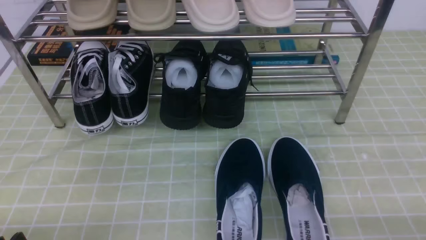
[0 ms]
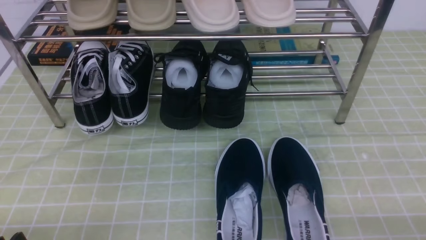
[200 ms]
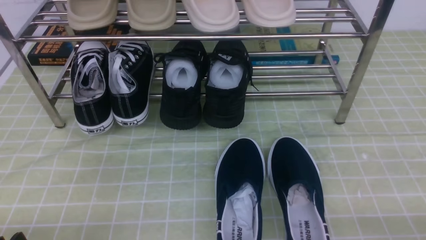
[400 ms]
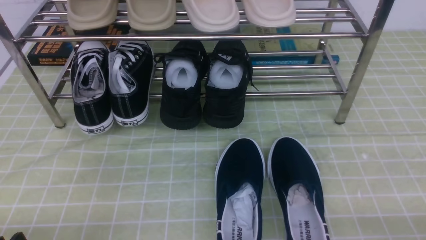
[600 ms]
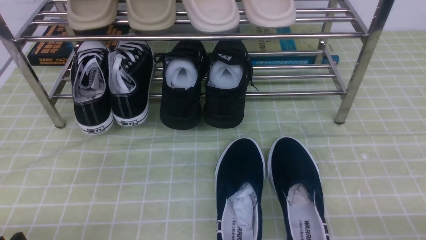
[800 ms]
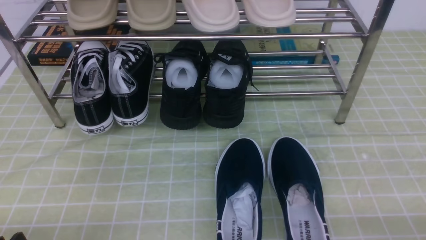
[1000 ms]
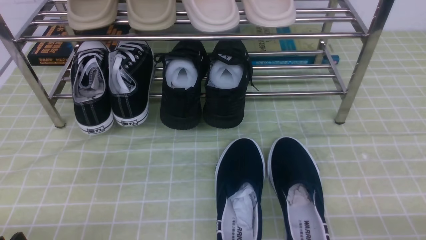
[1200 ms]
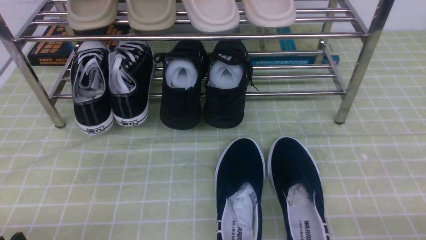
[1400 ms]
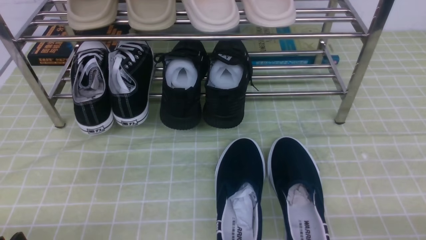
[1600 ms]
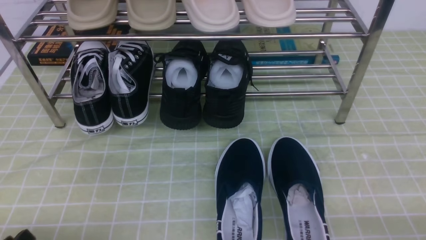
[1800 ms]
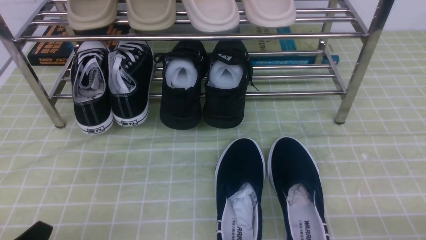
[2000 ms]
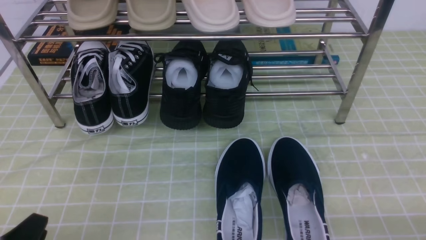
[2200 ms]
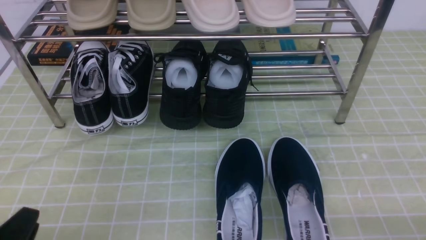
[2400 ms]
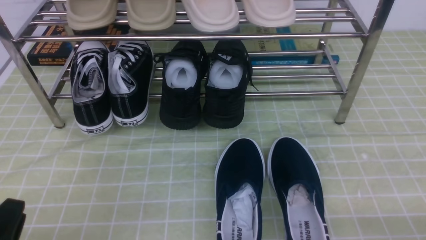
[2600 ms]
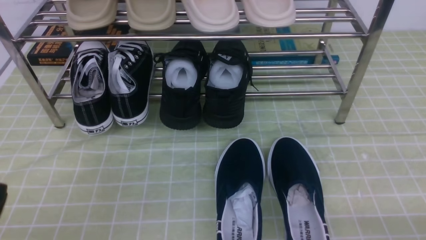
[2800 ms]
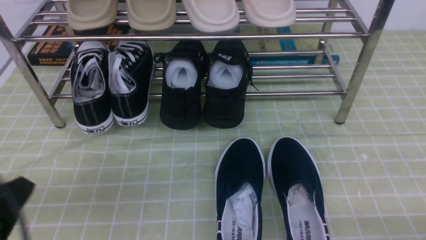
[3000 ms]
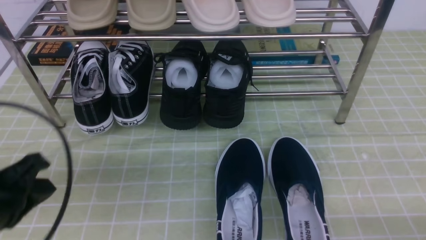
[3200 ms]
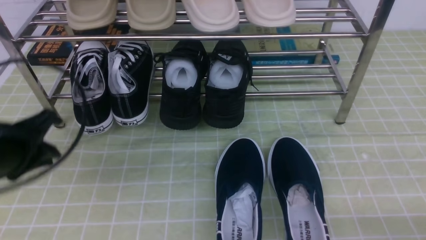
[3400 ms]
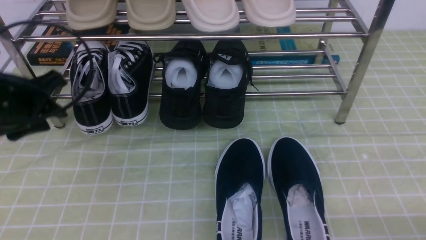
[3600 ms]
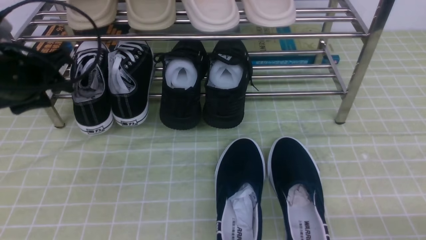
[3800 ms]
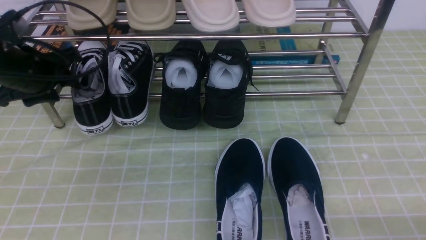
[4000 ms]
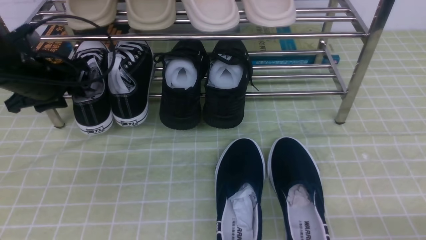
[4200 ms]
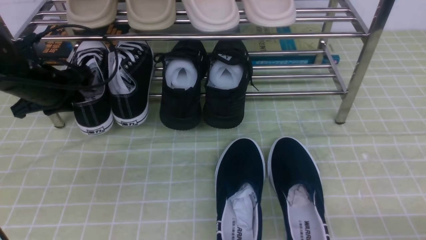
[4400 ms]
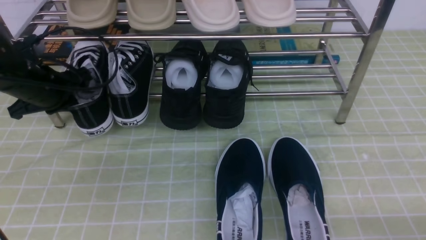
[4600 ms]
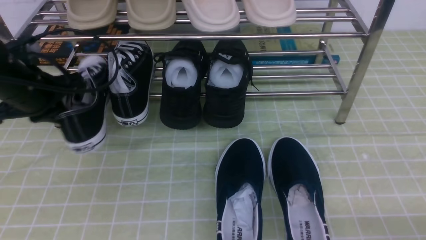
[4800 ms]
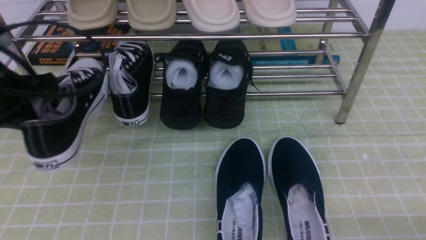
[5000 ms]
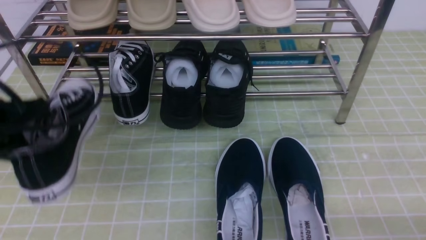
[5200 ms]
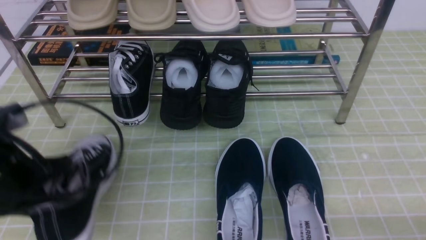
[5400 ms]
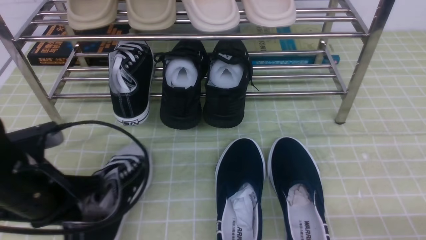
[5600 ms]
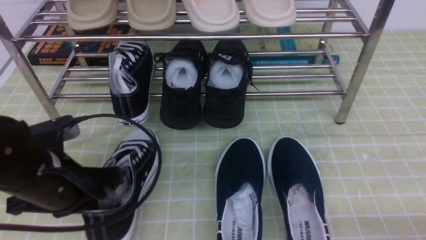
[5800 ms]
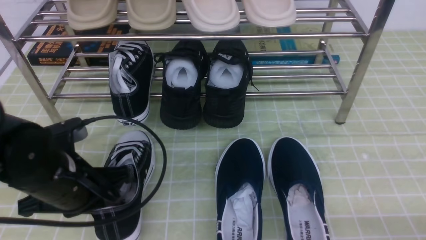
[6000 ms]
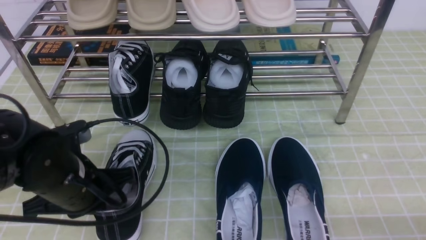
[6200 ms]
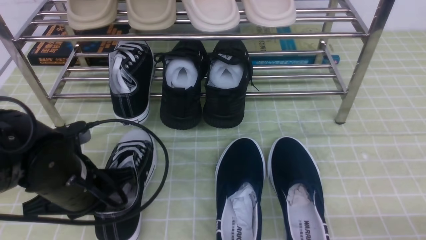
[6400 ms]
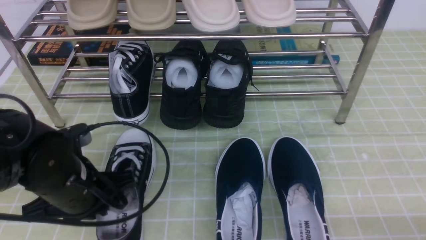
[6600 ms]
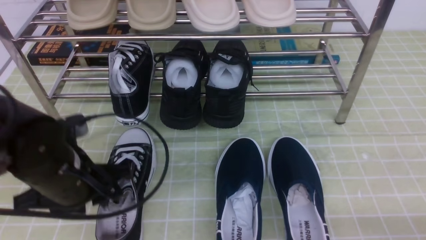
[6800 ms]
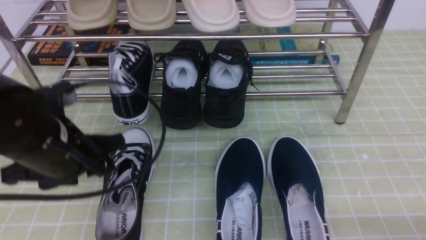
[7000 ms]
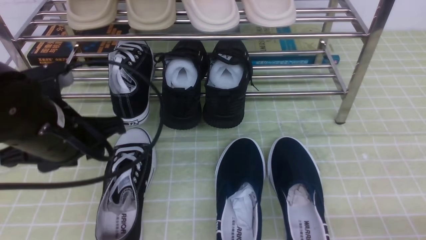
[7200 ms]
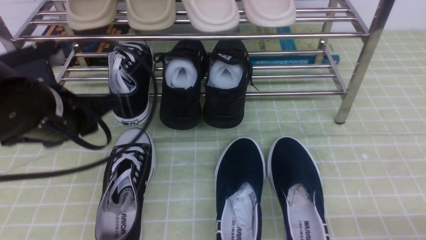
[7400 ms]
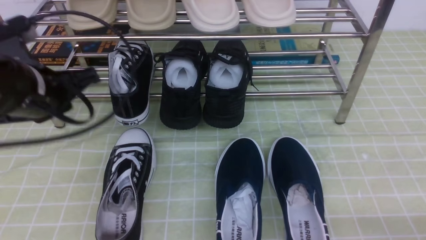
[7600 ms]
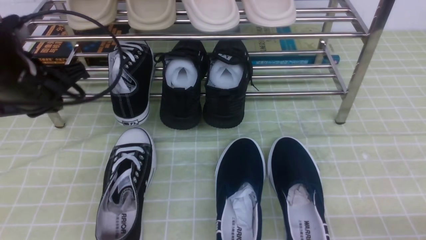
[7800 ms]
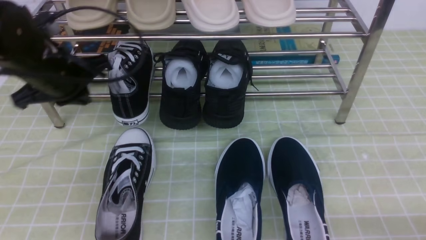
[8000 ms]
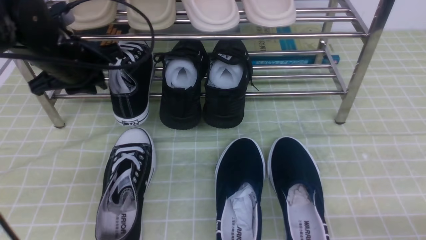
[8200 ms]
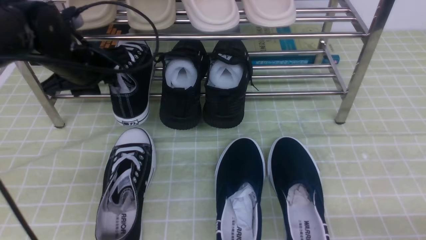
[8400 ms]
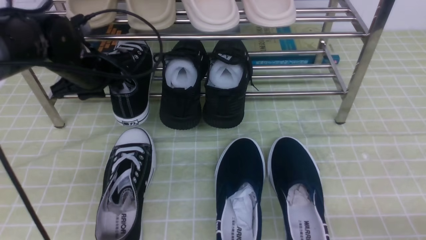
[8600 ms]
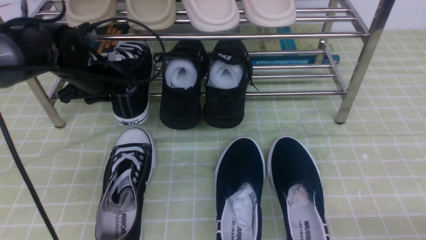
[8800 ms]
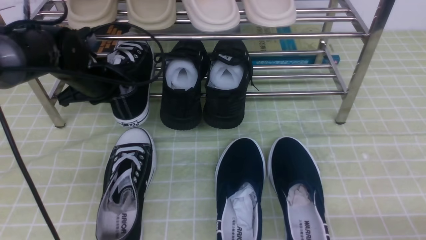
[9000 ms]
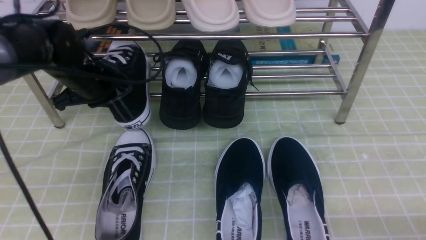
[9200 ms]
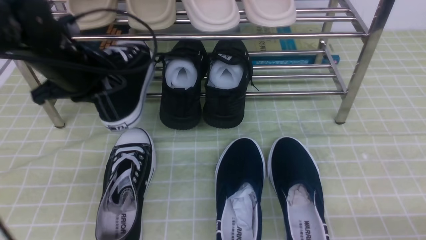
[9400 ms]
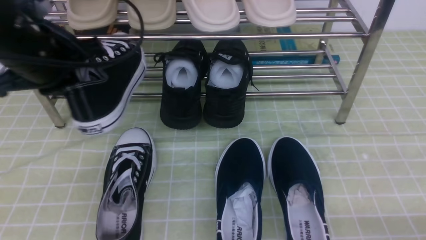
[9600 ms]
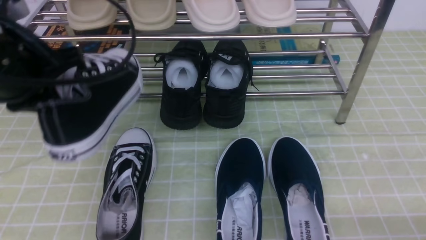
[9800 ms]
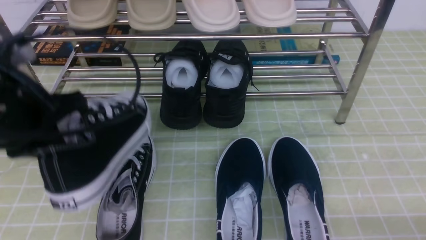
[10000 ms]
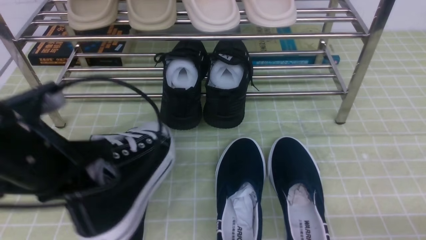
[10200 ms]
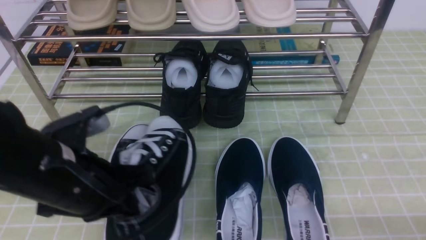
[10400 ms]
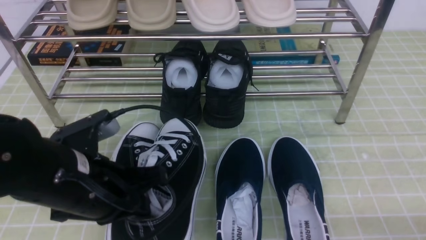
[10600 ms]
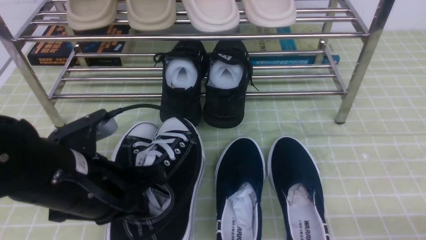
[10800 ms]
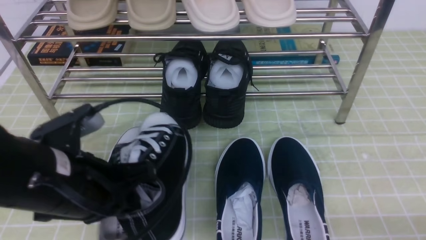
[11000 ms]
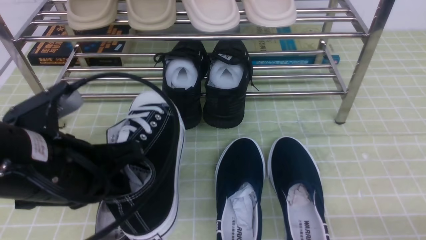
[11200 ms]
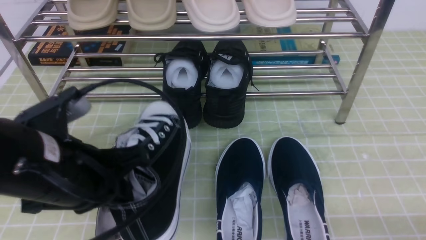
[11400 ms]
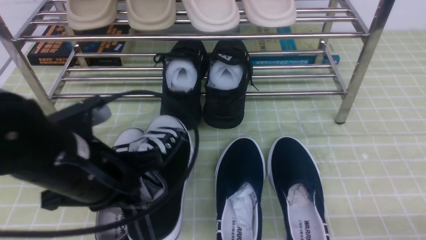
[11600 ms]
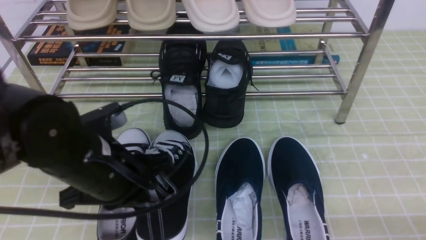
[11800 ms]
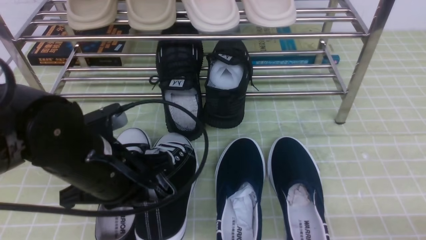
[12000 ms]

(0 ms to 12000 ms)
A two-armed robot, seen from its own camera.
Step, 0 ms - 4600 ms: use the left arm to clamp a shoe on the left side of the shoe rack.
Step, 4800 ms - 6800 ms: Use your left arm to remove the clamped shoe from the shoe rack and put it down.
Step, 7000 ms - 9000 ms: use the left arm to clamp a shoe on the left side of the shoe rack.
1600 ms - 3000 ms: The left gripper moves upward, approximately 10 cm, and closes its fingers.
3000 ms - 4400 ms: The left gripper moves forward, about 30 cm, and opens its fingers.
4400 ms - 6000 ms: The left gripper moves backward and to the right, some 20 cm, and closes its fingers.
6000 ms - 7600 ms: The left gripper is displaced upward and forward by about 10 cm, and opens, then closes once more.
7600 ms - 9000 ms: The left gripper moves forward and downward, approximately 15 cm, and opens, then closes once more.
9000 ms - 10400 ms: The left gripper goes some 20 cm backward.
10400 ms - 12000 ms: There are only small adjustments of the grippers.

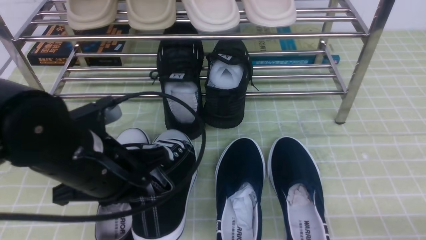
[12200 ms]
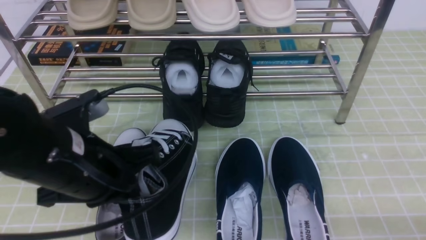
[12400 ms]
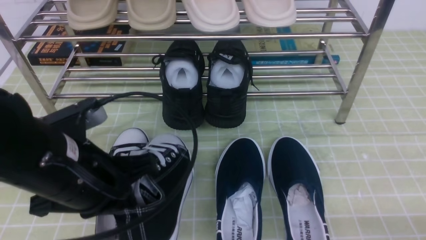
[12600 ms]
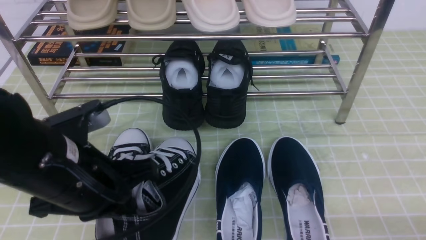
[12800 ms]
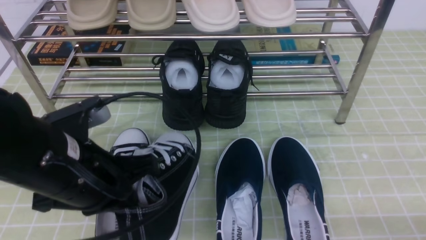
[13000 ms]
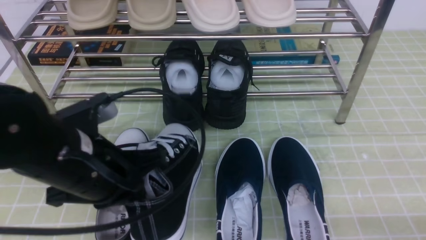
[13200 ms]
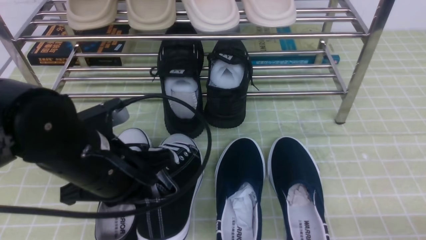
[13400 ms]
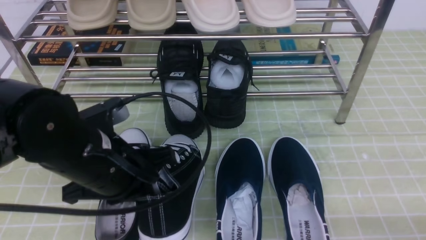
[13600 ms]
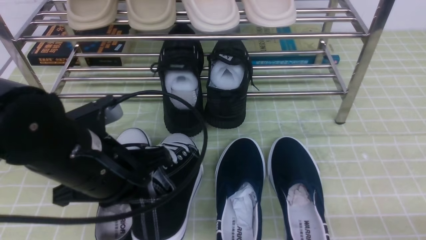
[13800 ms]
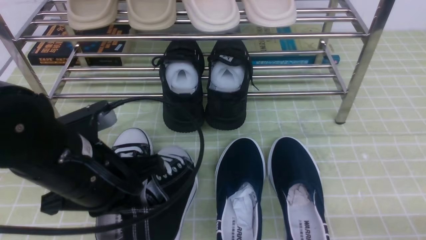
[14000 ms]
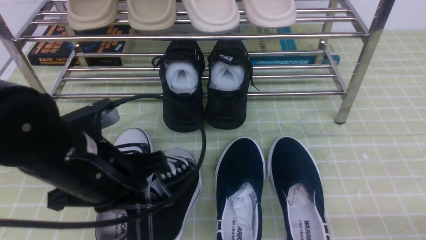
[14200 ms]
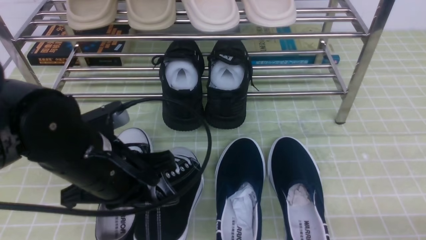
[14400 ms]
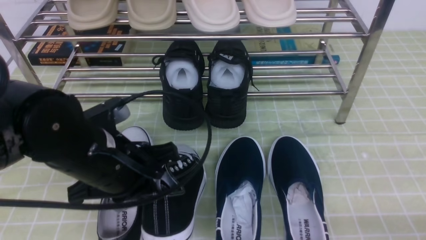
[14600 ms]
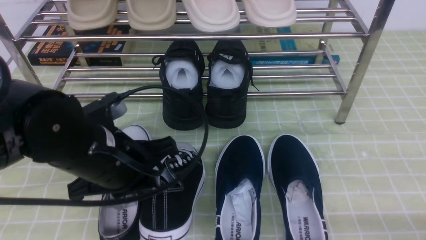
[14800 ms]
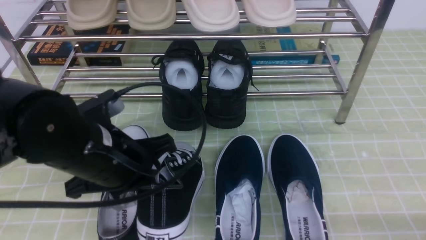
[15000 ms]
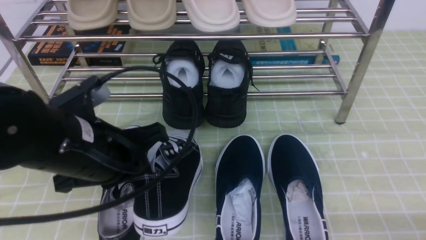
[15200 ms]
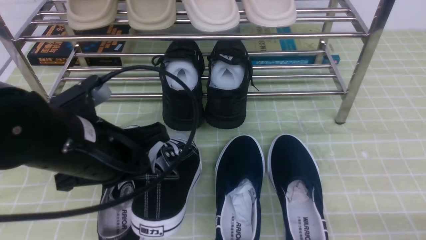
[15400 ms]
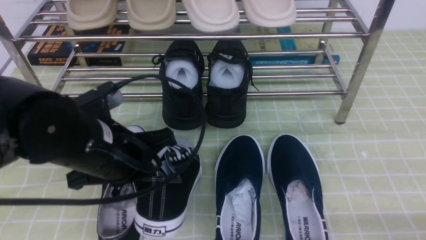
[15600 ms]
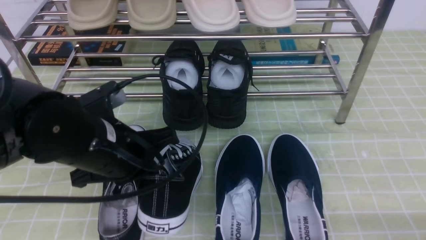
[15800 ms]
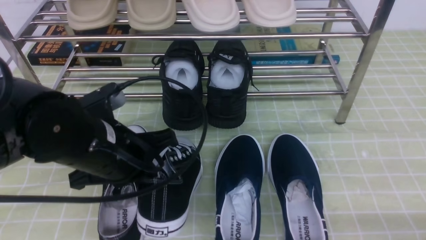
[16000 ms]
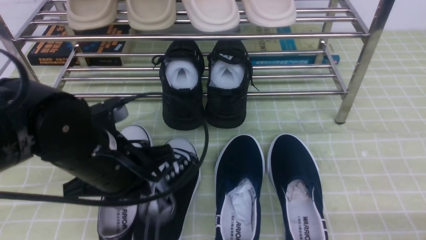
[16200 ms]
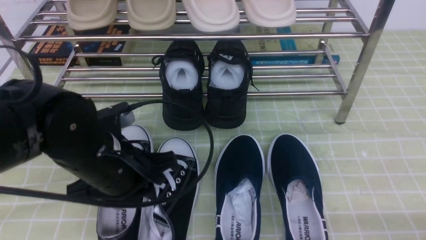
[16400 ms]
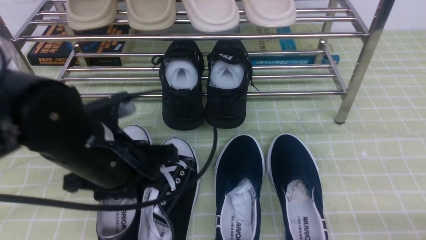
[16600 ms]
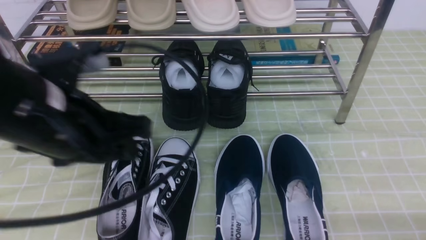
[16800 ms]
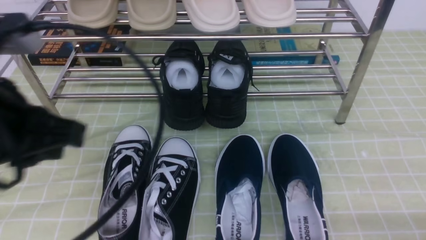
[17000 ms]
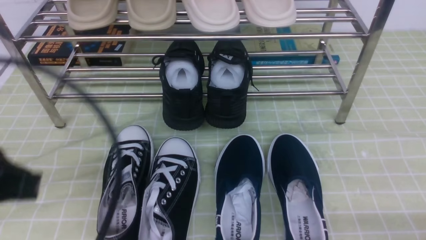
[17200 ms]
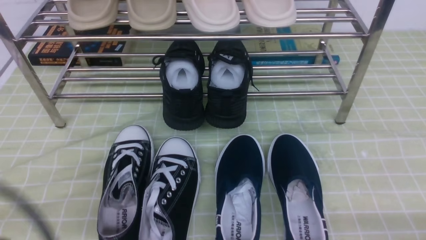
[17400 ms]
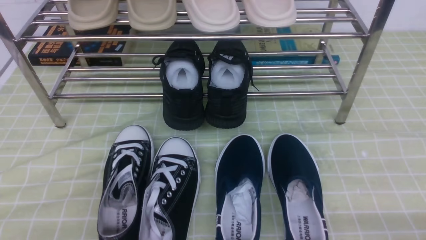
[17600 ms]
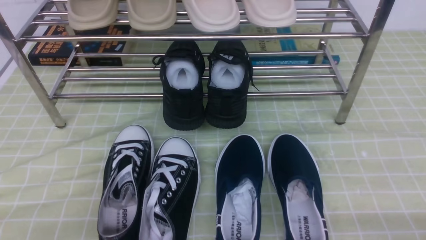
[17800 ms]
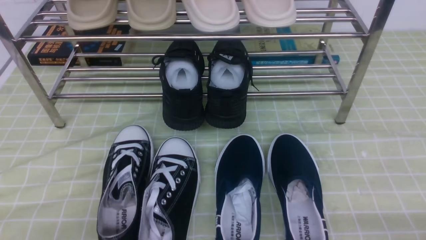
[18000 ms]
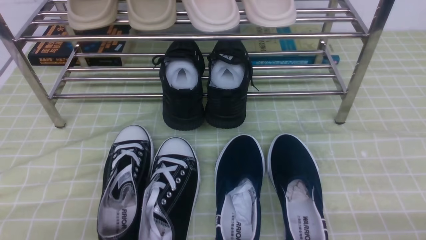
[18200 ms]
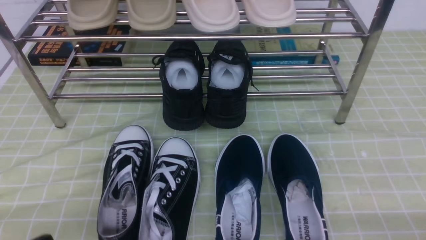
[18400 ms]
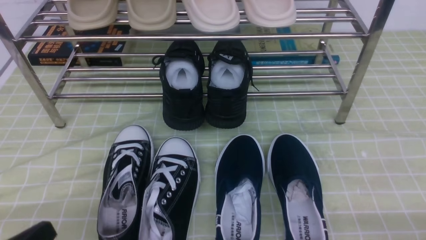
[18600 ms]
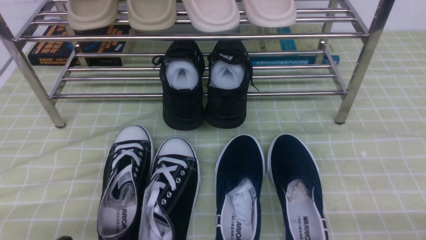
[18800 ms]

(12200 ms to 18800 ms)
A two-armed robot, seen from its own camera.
Step, 12200 ms - 17000 ms: Use your left arm to remove the clamped shoe from the shoe rack and put it down.
12200 ms - 15400 ms: The grippers stay close to where they were, moving slightly.
15400 ms - 17200 ms: The left gripper shifts about 15 cm backward, upward and to the left, and opens and closes again.
17200 ms - 18800 ms: The left gripper is displaced downward by about 20 cm.
